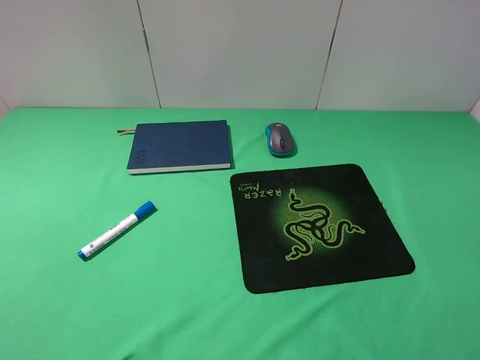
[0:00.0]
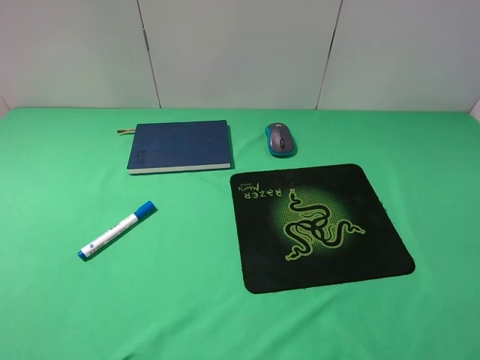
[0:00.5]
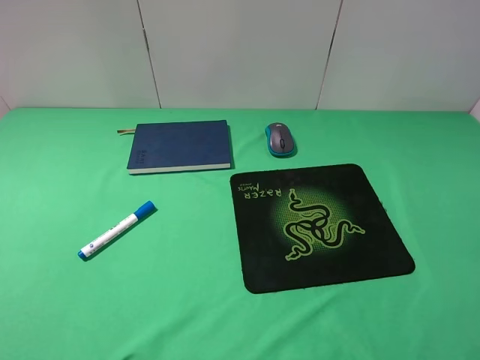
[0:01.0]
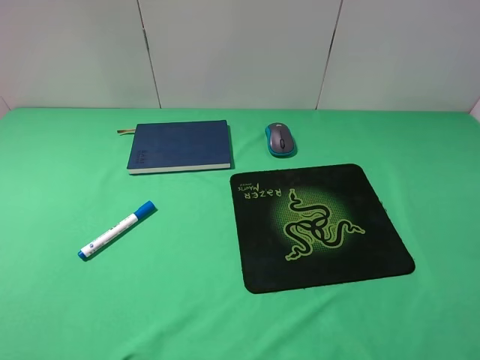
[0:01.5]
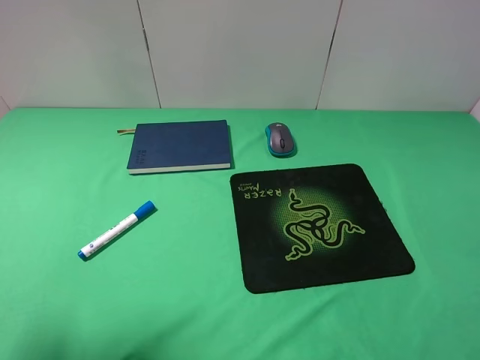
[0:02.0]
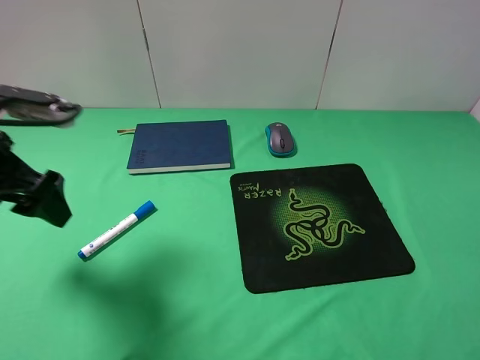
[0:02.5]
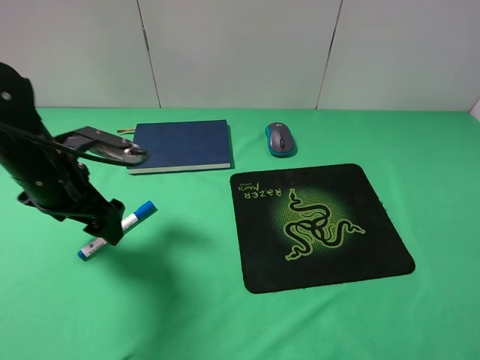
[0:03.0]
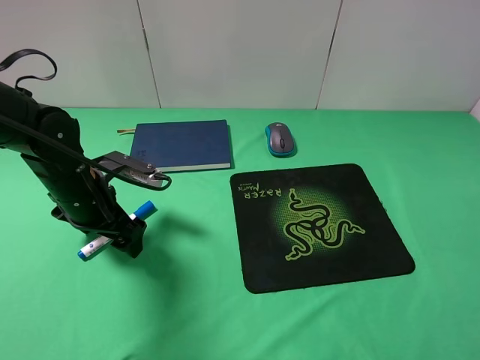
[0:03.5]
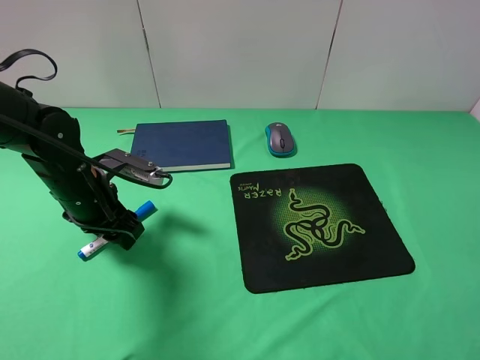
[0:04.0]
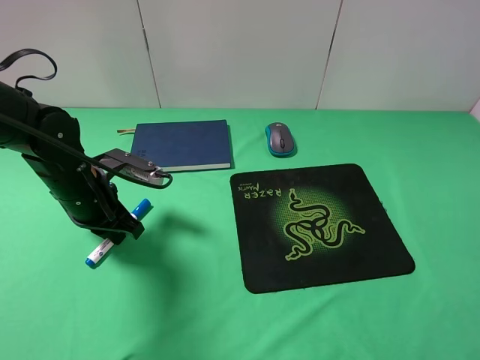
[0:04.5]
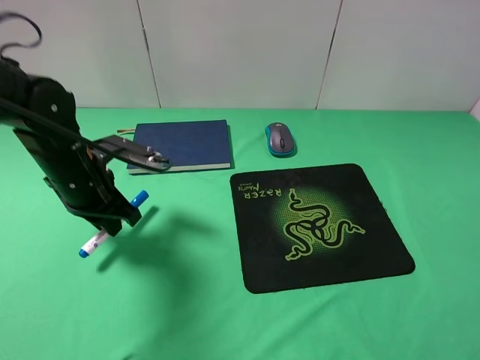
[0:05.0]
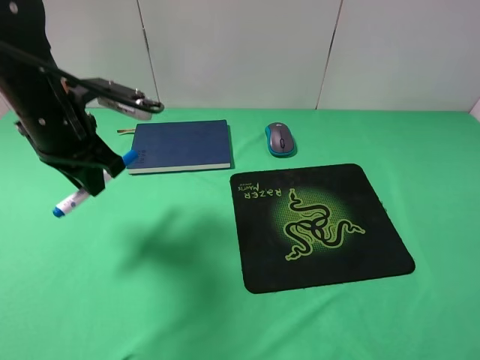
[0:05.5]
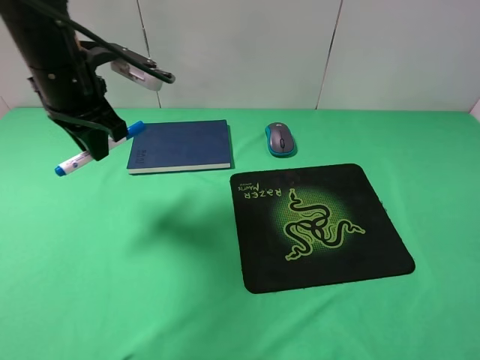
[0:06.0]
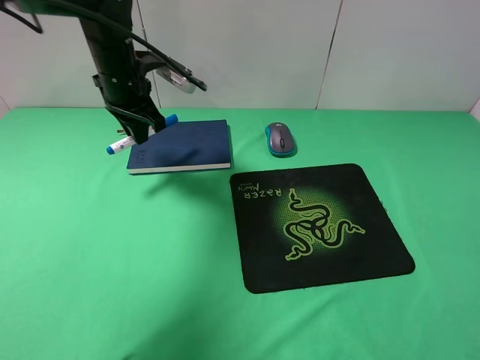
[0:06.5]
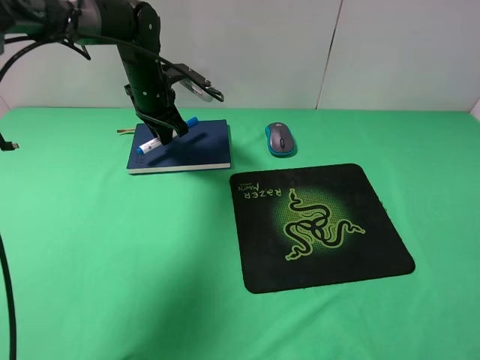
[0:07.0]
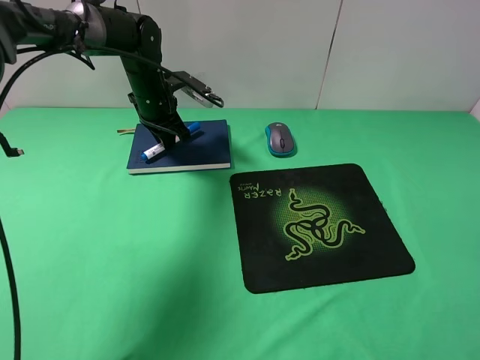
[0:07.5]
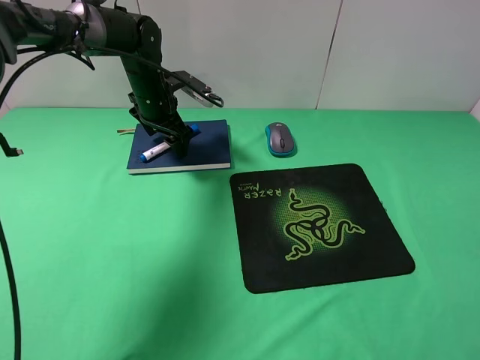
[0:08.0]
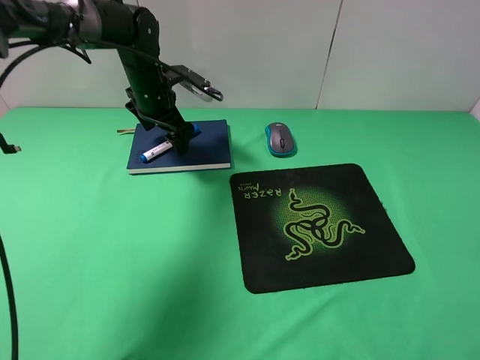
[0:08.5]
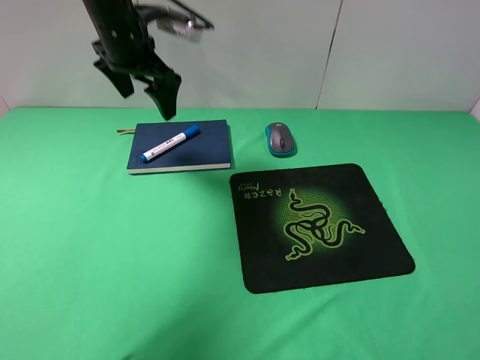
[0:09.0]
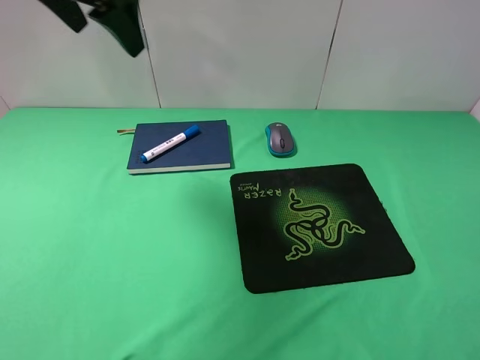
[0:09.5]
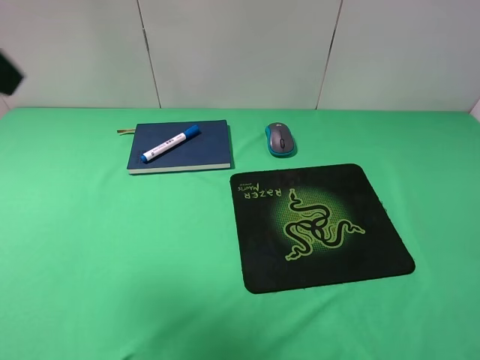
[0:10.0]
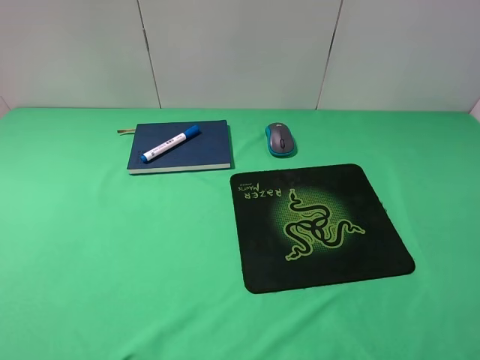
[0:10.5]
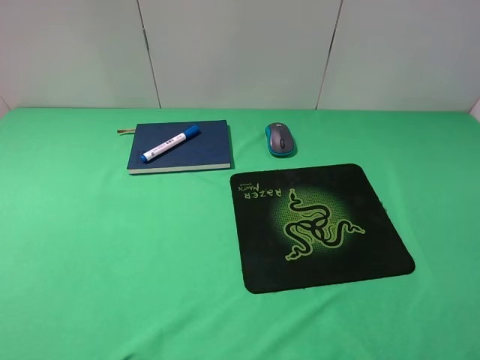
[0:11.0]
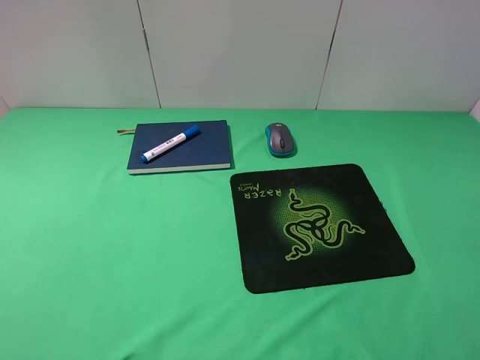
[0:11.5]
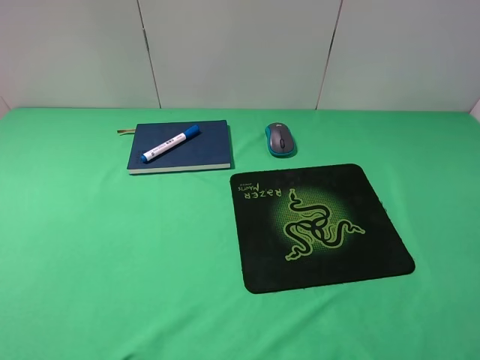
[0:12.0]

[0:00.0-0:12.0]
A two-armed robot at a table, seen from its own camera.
Step, 0:00.0 to 0:04.0: Grasp the marker with the left gripper.
Step, 0:04.5 to 0:08.0: Place the marker on the notebook with the left gripper.
0:00.0 to 0:02.0: The left gripper moves forward, roughly 15 cm.
0:02.0 to 0:04.0: The left gripper travels downward, forward and to the right by approximately 25 cm, and closes its fingers.
0:04.0 to 0:06.0: The left gripper shifts approximately 15 cm upward, and closes up.
0:06.0 to 0:08.0: The left gripper shifts some 20 cm forward and downward, and opens up.
0:08.0 to 0:10.0: The left gripper moves backward and upward, approximately 40 cm.
0:10.0 to 0:12.0: The left gripper moves backward and downward, some 20 cm.

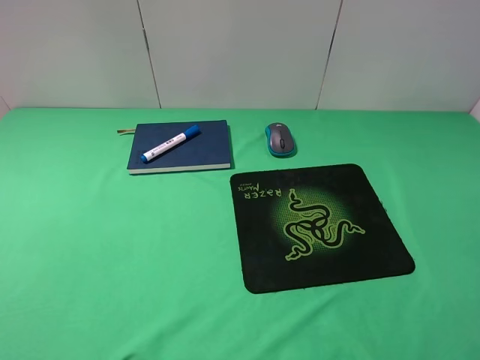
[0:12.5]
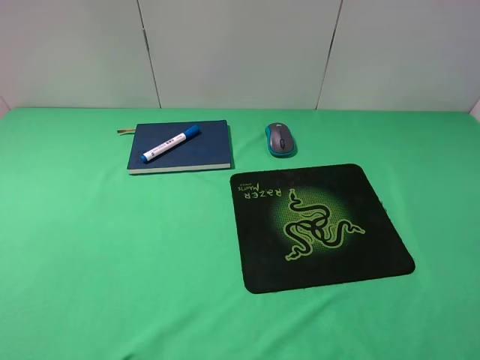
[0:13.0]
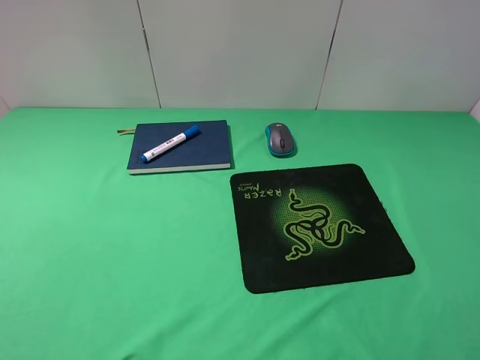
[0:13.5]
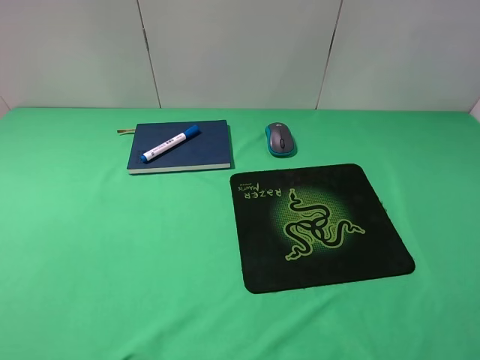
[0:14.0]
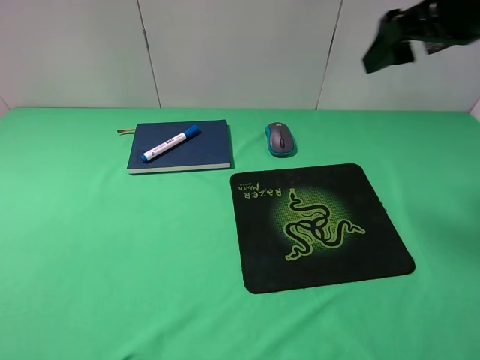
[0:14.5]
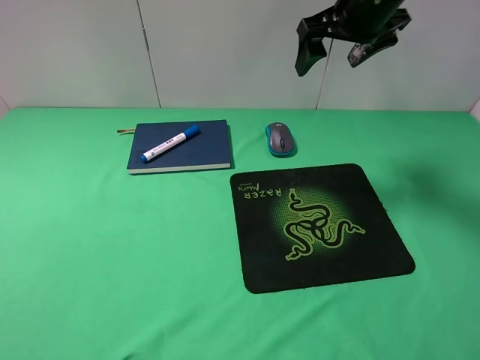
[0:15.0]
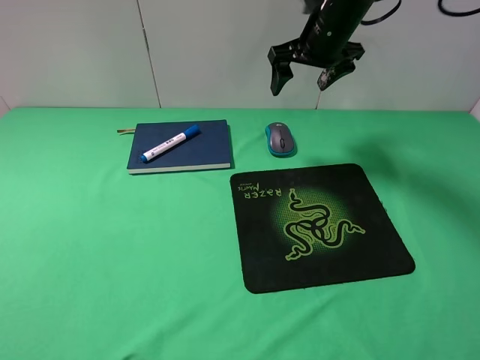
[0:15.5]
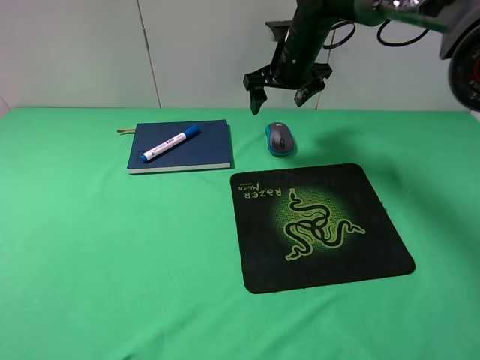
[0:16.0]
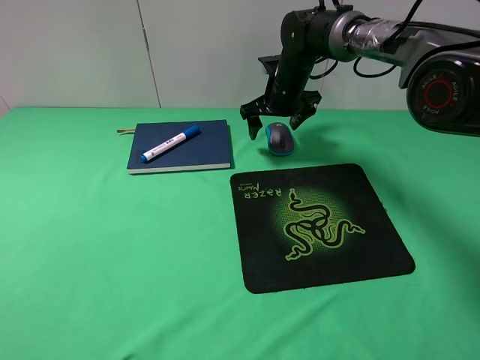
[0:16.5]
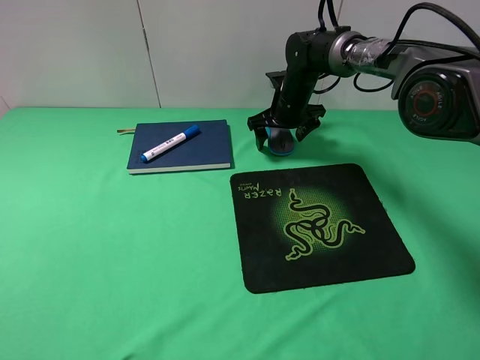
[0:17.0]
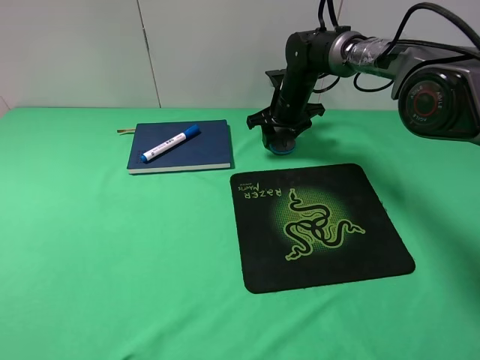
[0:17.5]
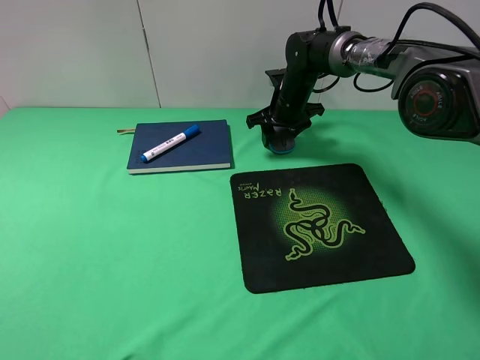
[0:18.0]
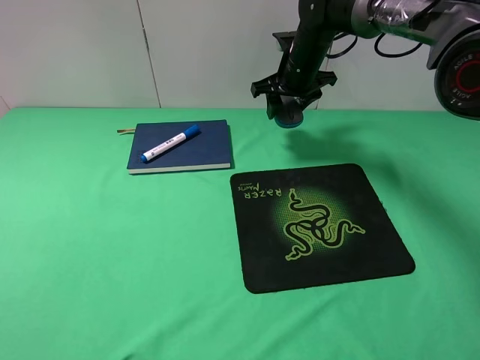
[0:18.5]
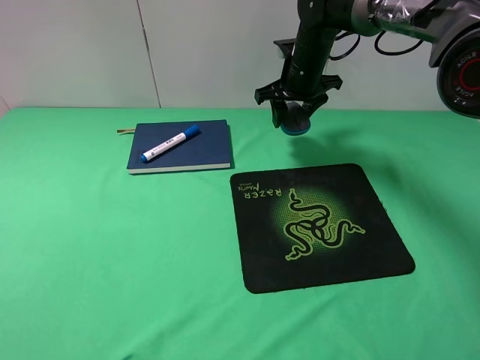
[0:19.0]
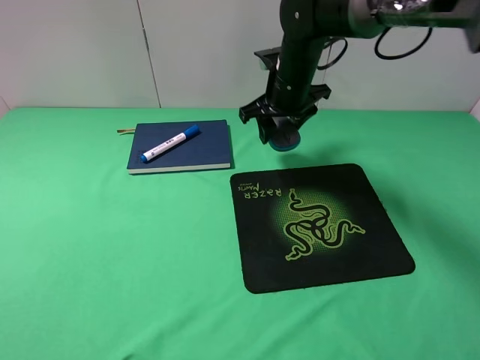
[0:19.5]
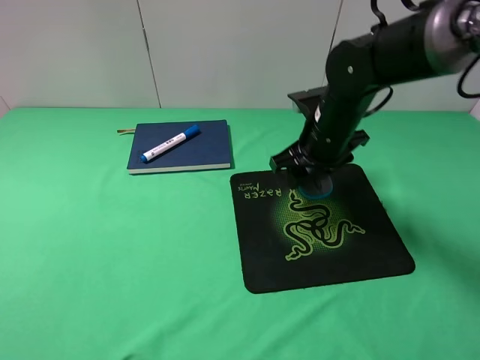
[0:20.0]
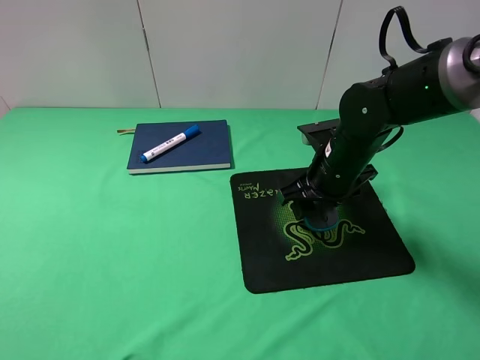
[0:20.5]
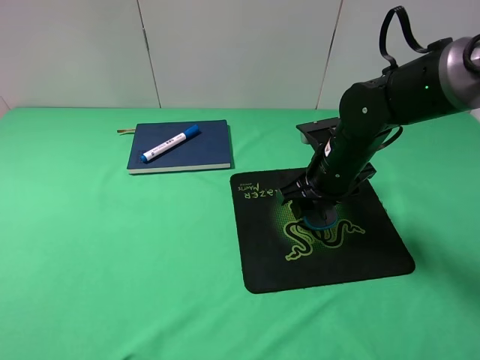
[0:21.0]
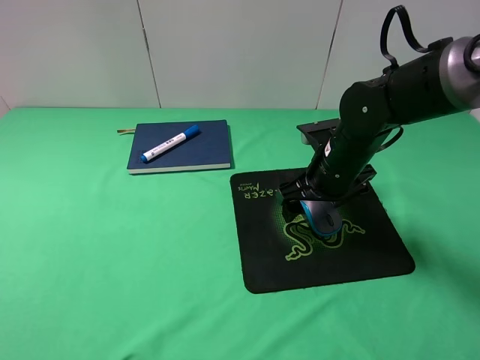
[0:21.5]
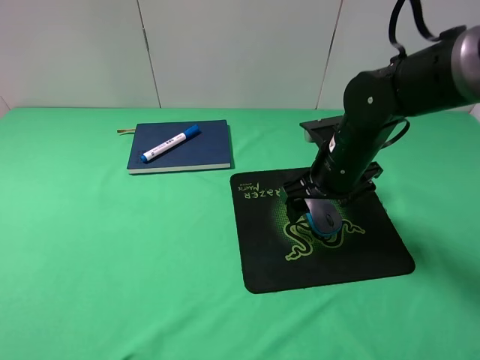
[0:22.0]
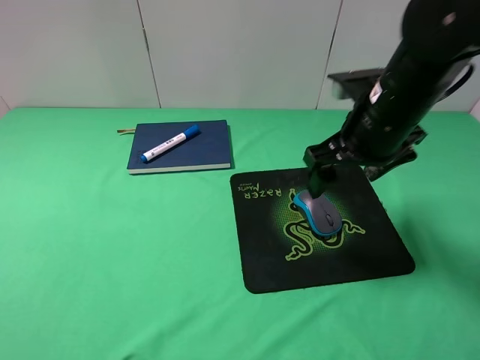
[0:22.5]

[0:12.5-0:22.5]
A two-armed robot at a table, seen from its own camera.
Step, 0:12.5 to 0:17.5: Grasp the mouse with the right gripper.
Step, 0:18.0 to 0:22.5: Place the mouse on the mouse pad with the right gripper.
0:12.5 to 0:14.5: The right gripper travels forward by some 30 cm.
0:14.5 to 0:16.5: The right gripper travels downward, forward and to the left by approximately 30 cm.
0:16.5 to 0:18.5: The right gripper moves approximately 5 cm, and closes its fingers.
0:18.5 to 0:20.5: The right gripper is displaced backward by roughly 20 cm.
0:20.5 to 0:22.5: The right gripper moves upward, some 10 cm, and opens its fingers.

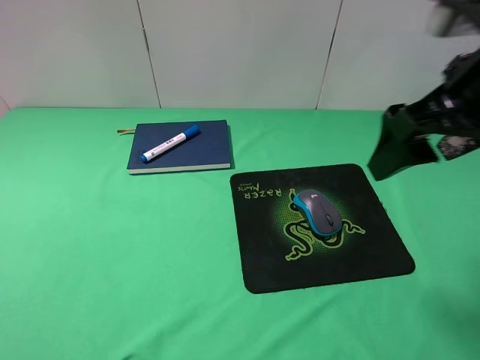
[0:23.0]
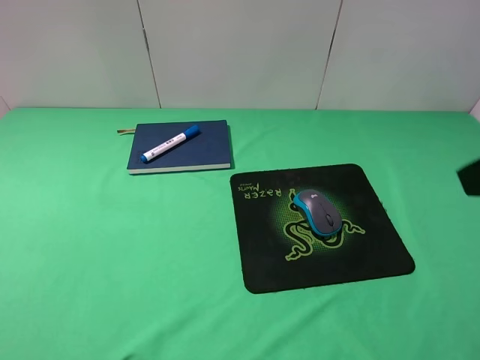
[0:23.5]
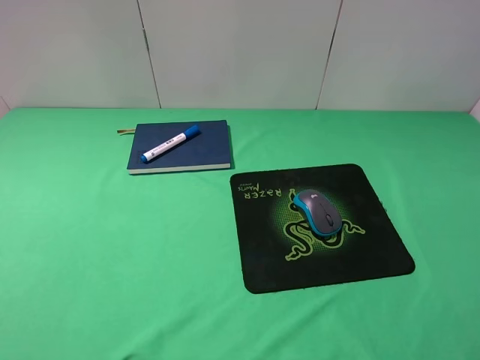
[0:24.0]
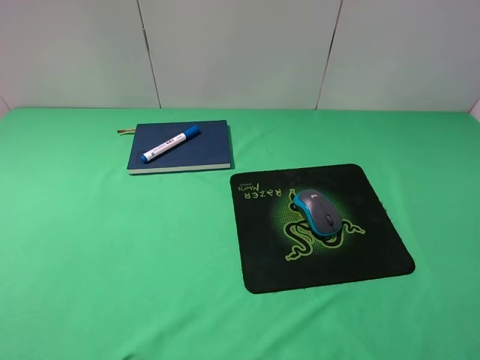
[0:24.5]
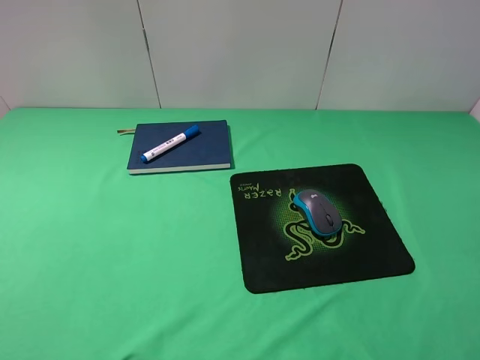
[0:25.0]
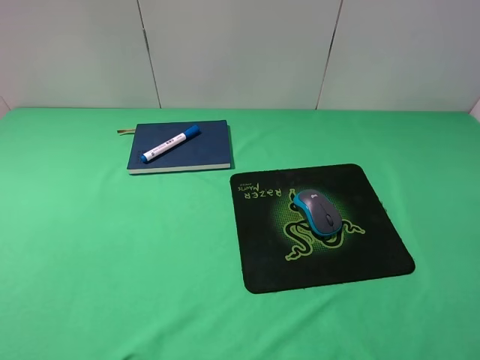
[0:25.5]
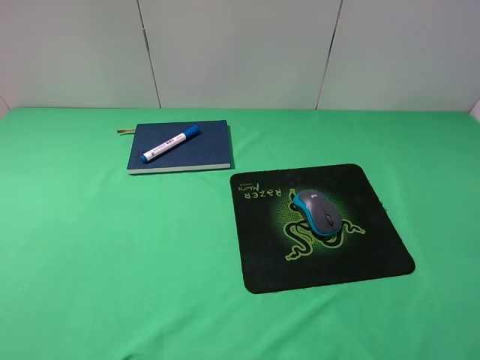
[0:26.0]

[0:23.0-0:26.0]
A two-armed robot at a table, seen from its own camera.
0:23.0 to 0:24.5: The right gripper travels backward and to the right by some 20 cm.
0:24.5 to 0:26.0: Both grippers stay about where they are.
